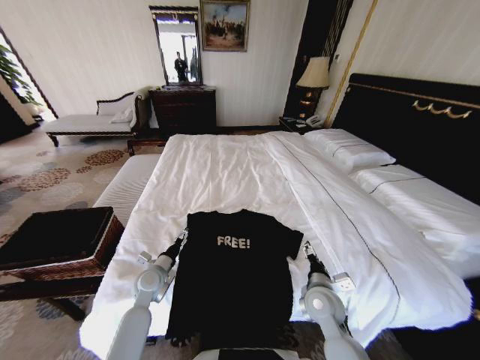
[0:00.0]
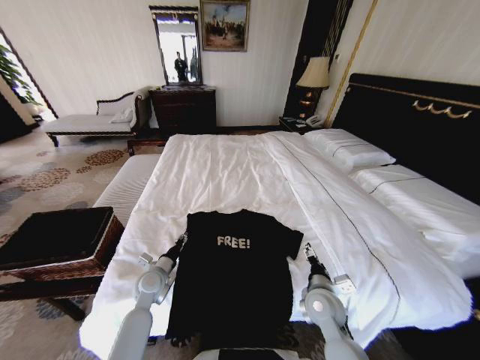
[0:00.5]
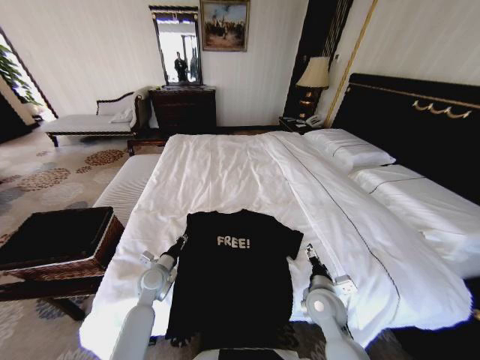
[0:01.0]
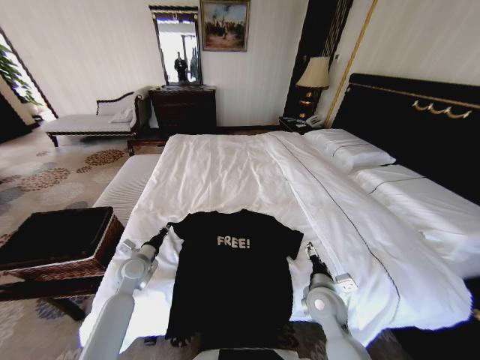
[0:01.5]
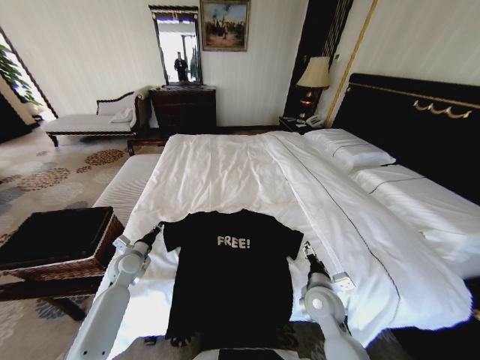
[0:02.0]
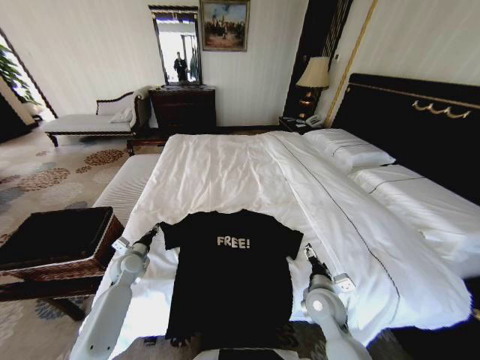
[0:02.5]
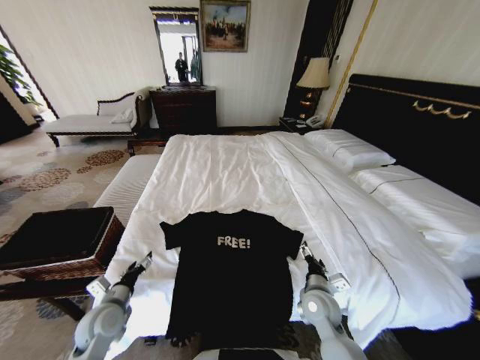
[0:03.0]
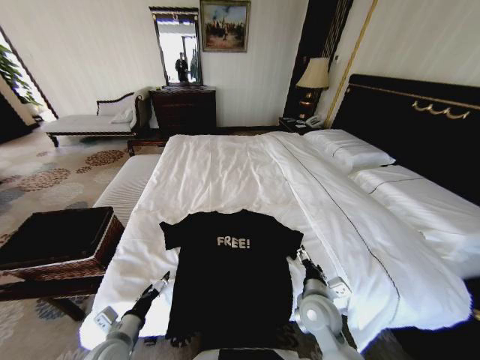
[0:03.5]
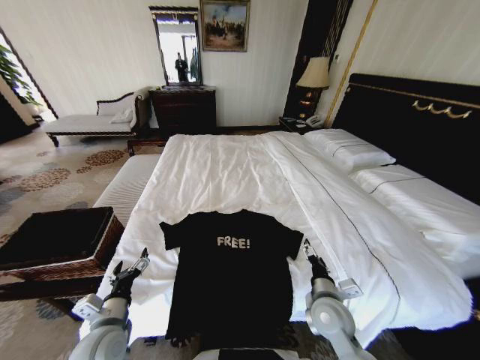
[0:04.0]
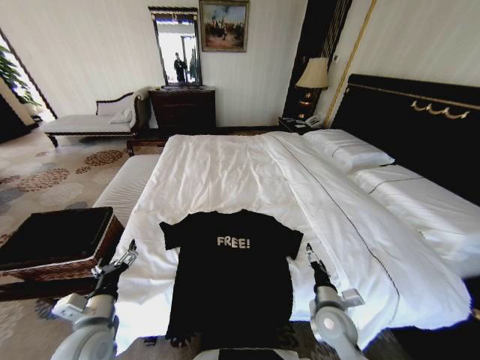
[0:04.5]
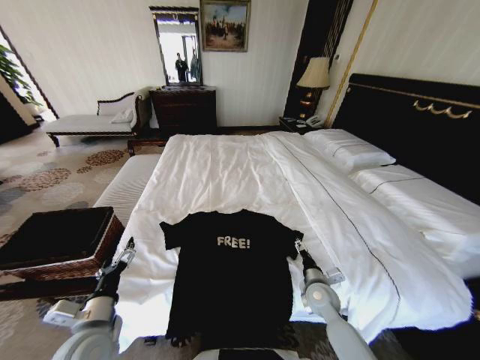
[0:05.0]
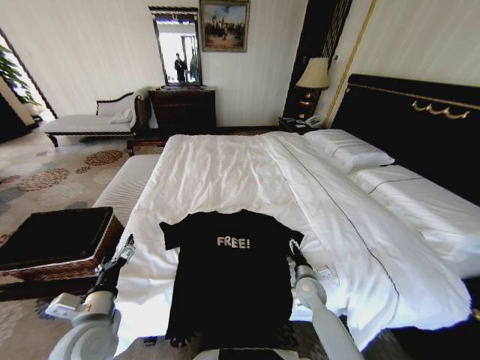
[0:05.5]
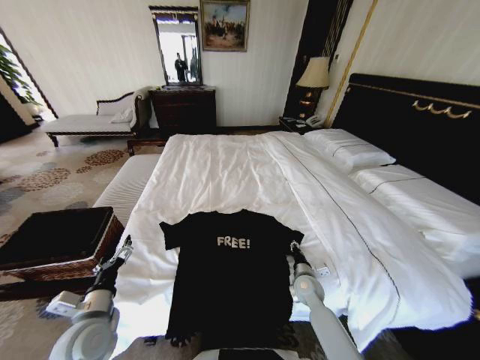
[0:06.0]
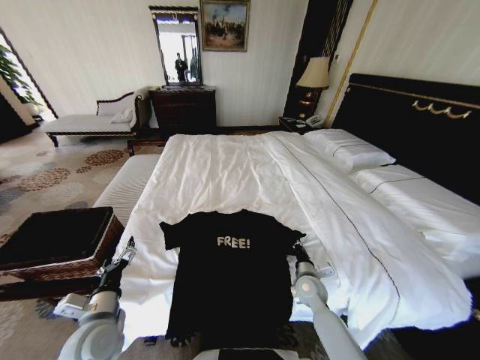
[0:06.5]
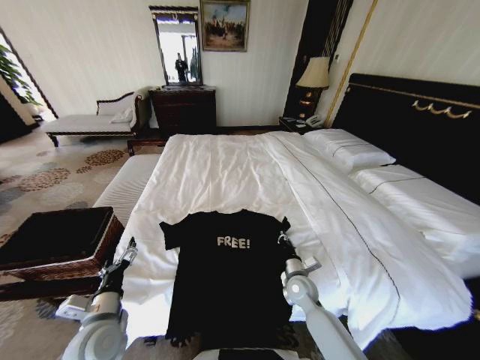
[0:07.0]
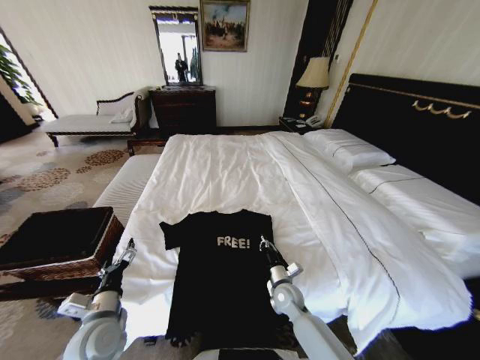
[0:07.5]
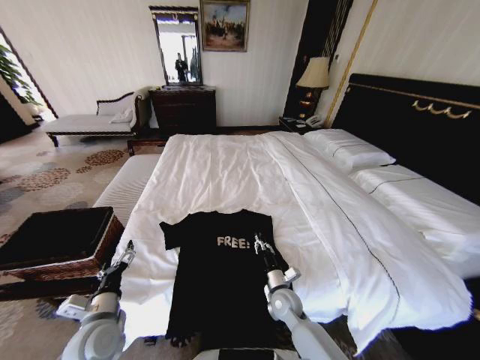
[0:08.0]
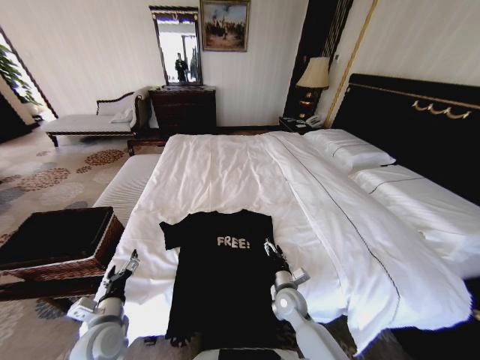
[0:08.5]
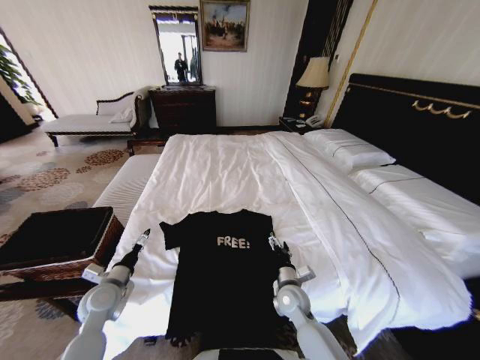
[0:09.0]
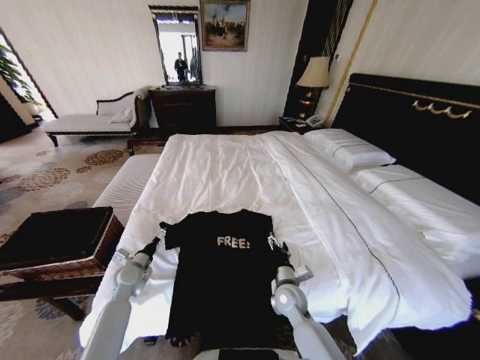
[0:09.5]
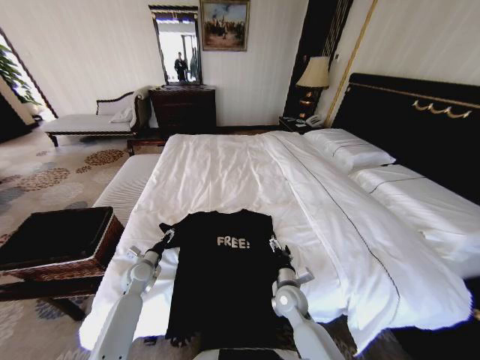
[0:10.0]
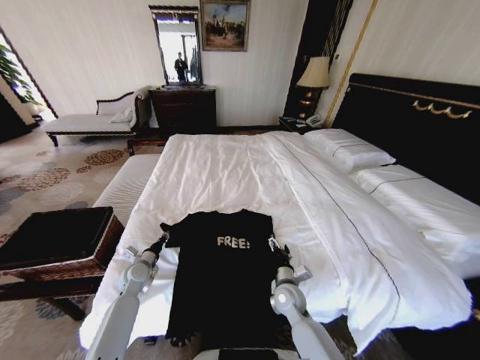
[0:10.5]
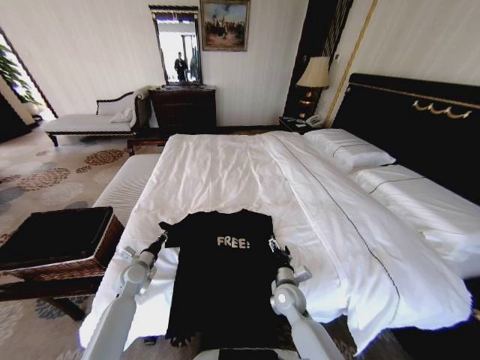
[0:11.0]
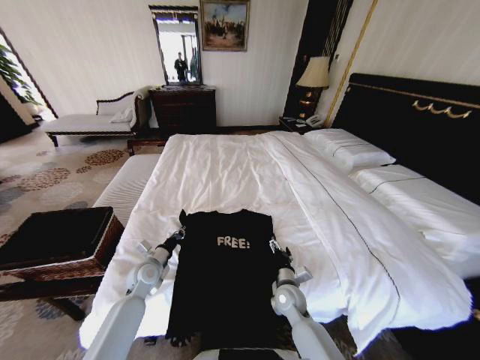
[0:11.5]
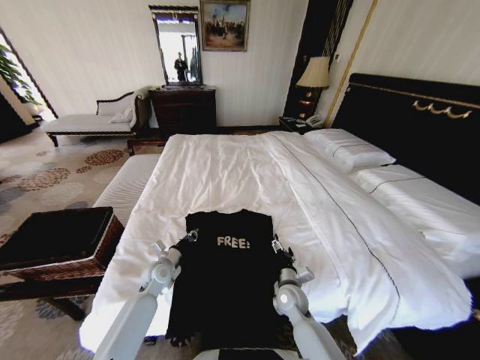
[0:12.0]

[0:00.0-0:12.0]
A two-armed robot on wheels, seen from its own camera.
Task of the whole recording: Fold the clothes on the bed and place them into the basket.
0:00.0 to 0:02.0: The left gripper shifts some 10 cm to the left, and closes.
0:02.0 to 0:04.0: The left gripper heads backward, covering about 20 cm, and opens up.
0:04.0 to 0:06.0: The right gripper travels downward and forward by roughly 15 cm, and closes up.
0:06.0 to 0:08.0: The right gripper shifts roughly 10 cm to the left.
0:08.0 to 0:10.0: The left gripper shifts about 20 cm forward and downward. Meanwhile the right gripper opens.
0:10.0 to 0:12.0: The left gripper is displaced to the right by approximately 5 cm, and closes.

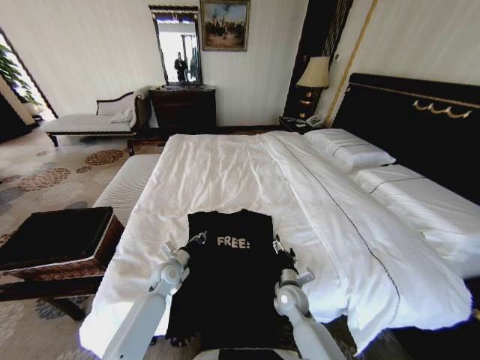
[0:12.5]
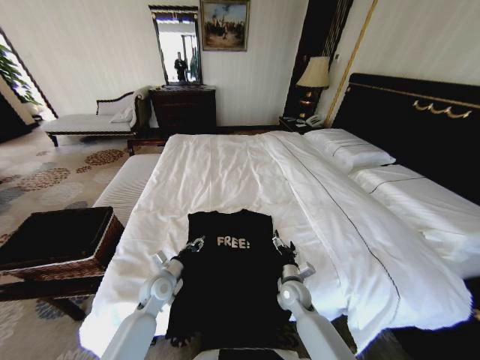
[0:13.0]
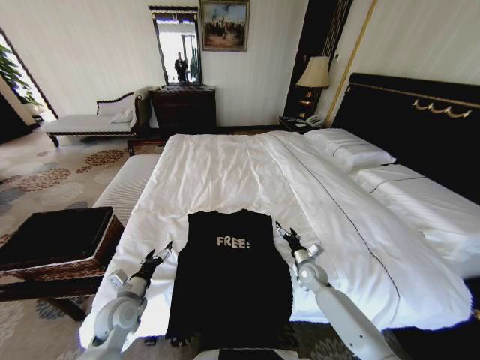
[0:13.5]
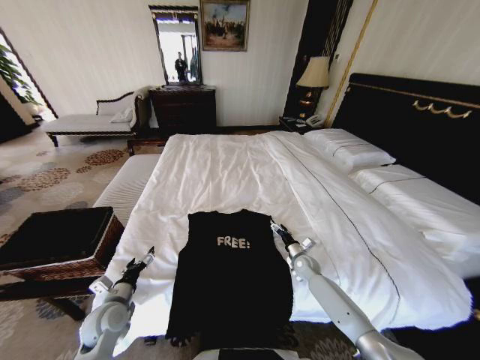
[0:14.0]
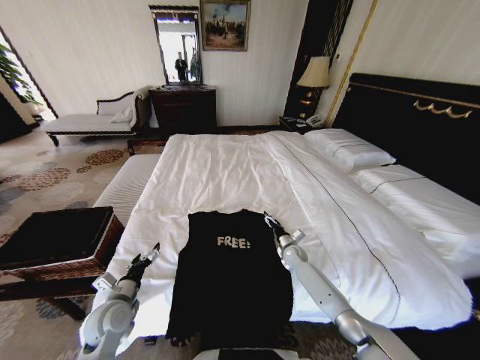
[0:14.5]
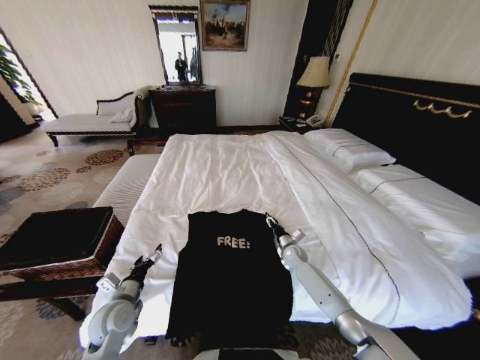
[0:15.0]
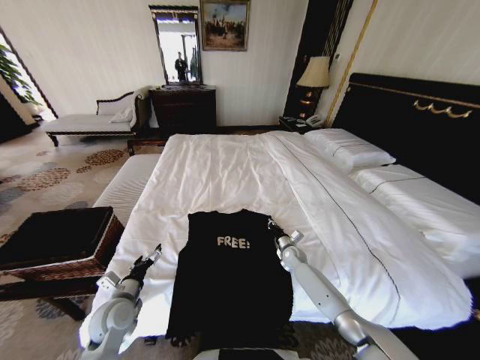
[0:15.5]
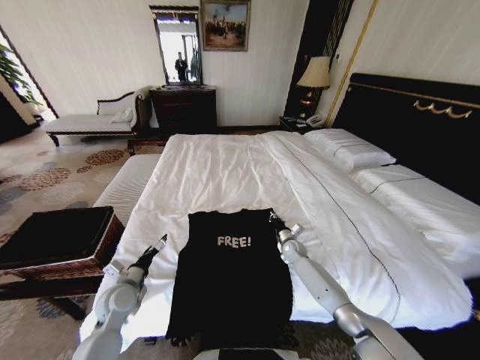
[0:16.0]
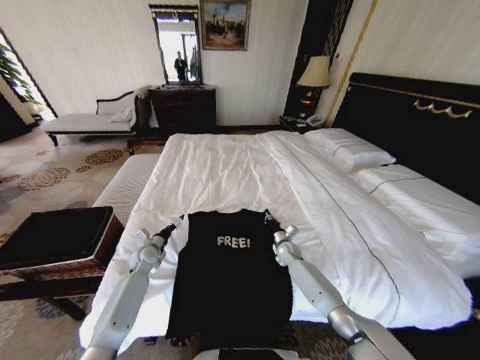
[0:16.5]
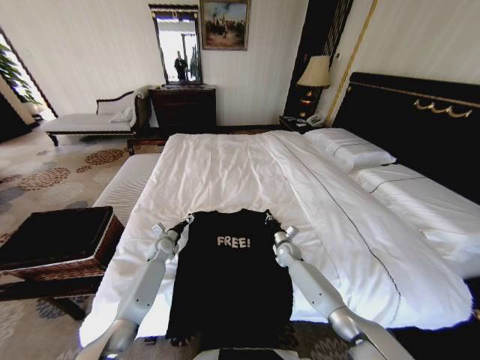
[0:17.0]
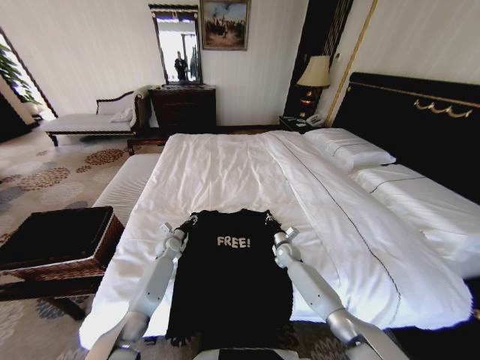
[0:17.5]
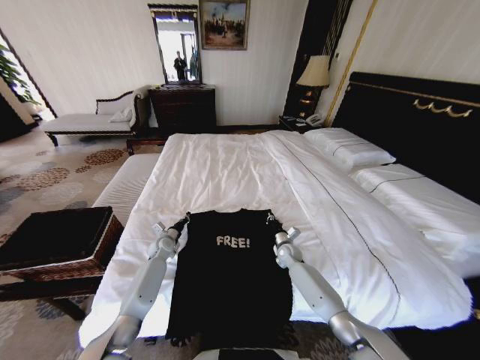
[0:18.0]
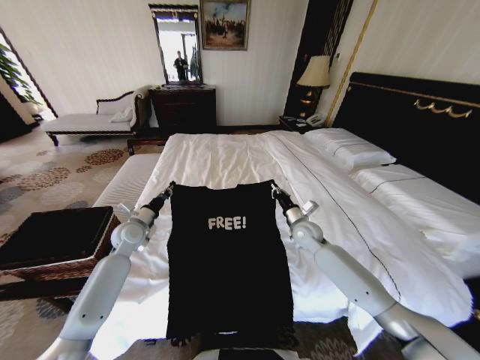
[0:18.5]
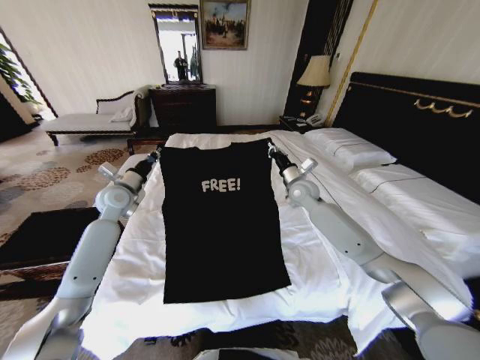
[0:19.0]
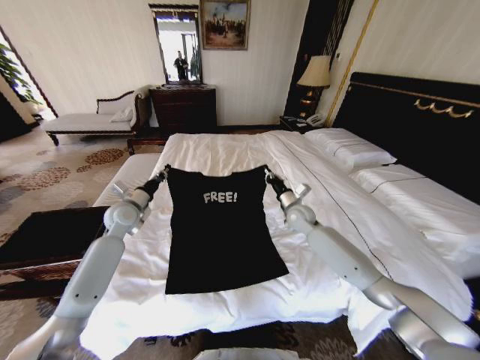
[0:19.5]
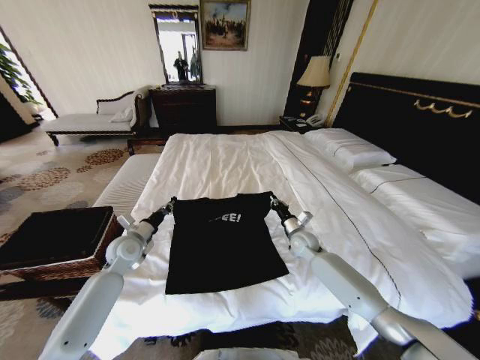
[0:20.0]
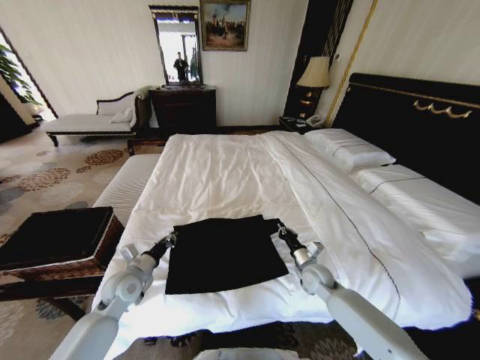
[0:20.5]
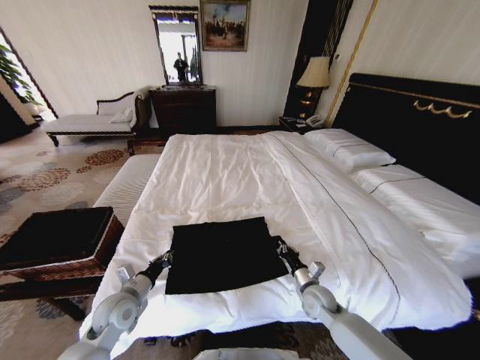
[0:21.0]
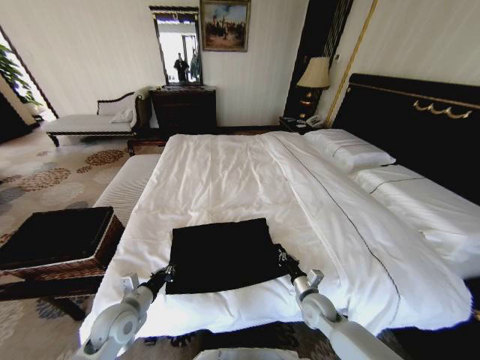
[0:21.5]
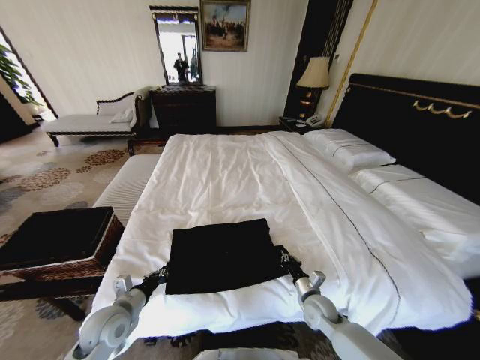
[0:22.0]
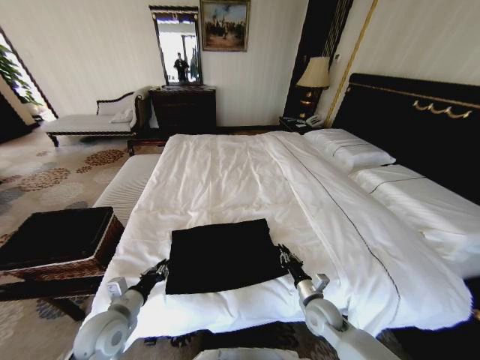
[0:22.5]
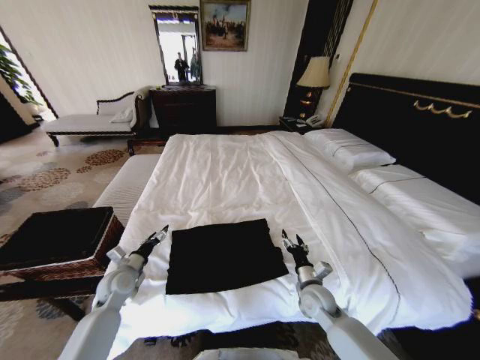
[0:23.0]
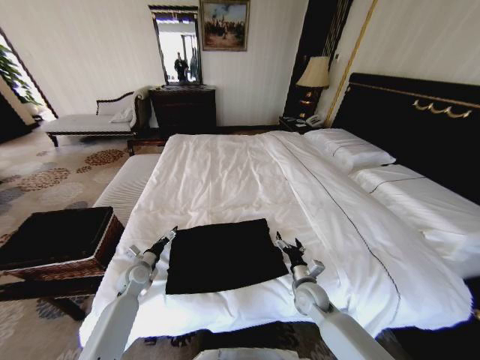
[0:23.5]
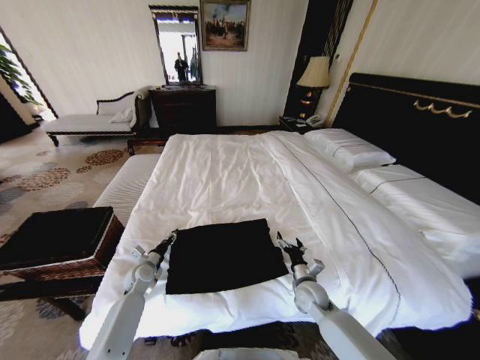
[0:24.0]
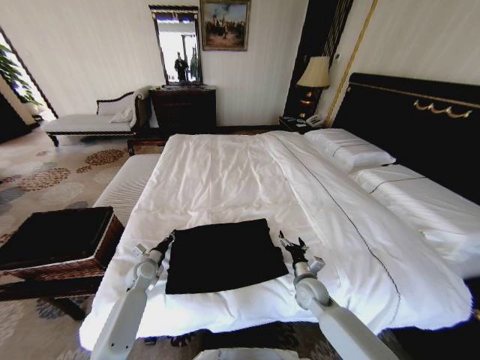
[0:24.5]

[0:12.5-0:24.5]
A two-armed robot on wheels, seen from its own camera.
Task of the whole recording: Fold the clothes on the bed and place them into the basket.
0:12.5 to 0:14.5: The right gripper is displaced forward and to the right by roughly 20 cm. The left gripper is displaced backward, to the left and upward by approximately 15 cm, and opens up.
0:14.5 to 0:16.5: The right gripper closes. The left gripper travels forward by roughly 20 cm.
0:16.5 to 0:18.5: The two grippers go roughly 10 cm upward. The left gripper closes up.
0:18.5 to 0:20.5: Both grippers travel together backward, approximately 10 cm. The right gripper goes upward and returns, about 15 cm each way.
0:20.5 to 0:22.5: The two grippers go about 10 cm backward.
0:22.5 to 0:24.5: The right gripper travels forward by some 5 cm, and opens up; the left gripper goes some 20 cm forward and downward, and opens, then closes once more.

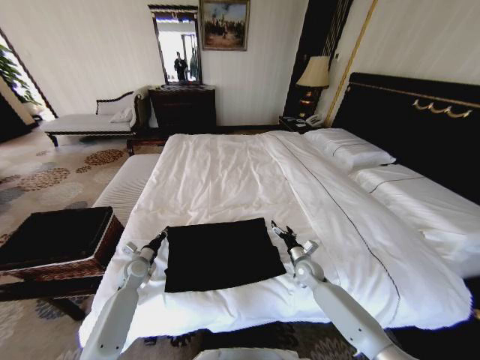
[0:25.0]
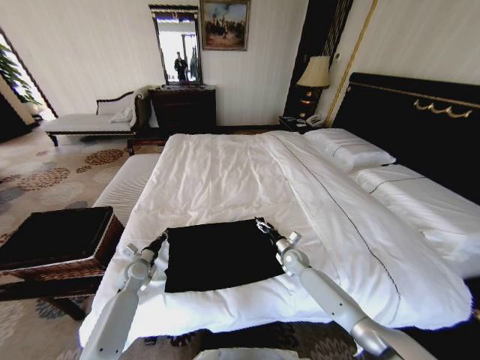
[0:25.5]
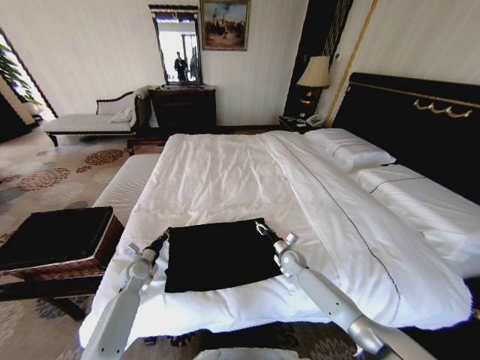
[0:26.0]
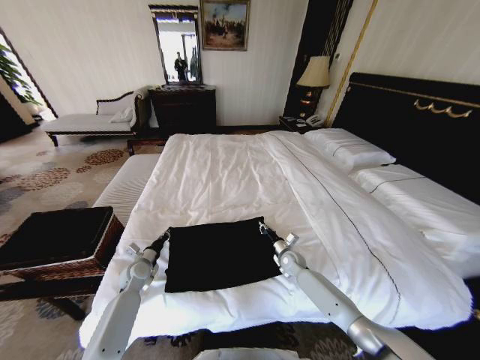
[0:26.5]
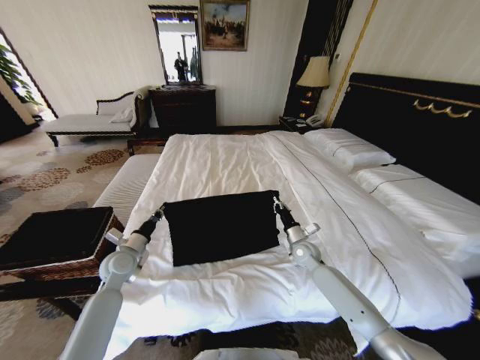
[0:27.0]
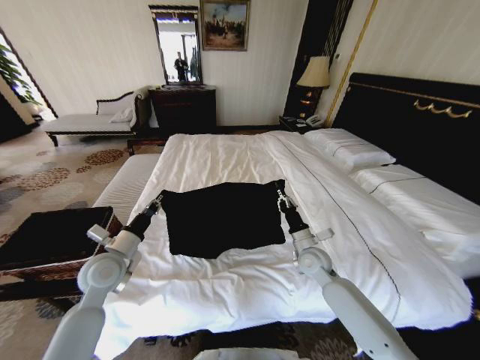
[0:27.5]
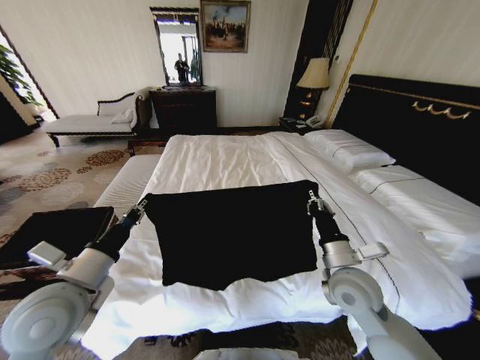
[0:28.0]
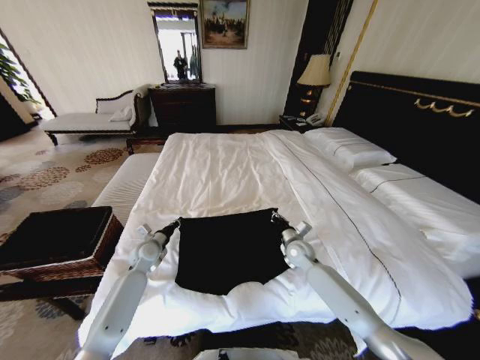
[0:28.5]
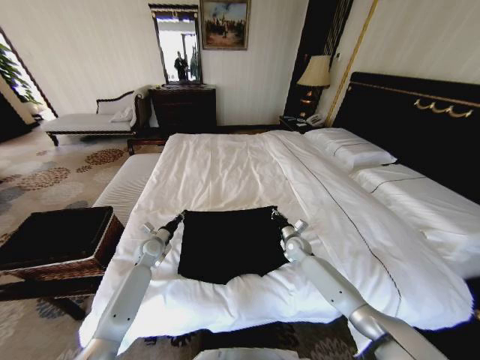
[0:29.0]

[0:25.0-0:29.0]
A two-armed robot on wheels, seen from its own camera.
Task of the whole recording: Fold the clothes on the bed and place them into the basket.
0:25.0 to 0:27.0: The right gripper moves upward, about 5 cm, and closes up. Meanwhile the left gripper heads upward, covering about 10 cm.
0:27.0 to 0:29.0: The left gripper shifts some 10 cm forward and downward; the right gripper goes backward and returns, about 15 cm each way.
